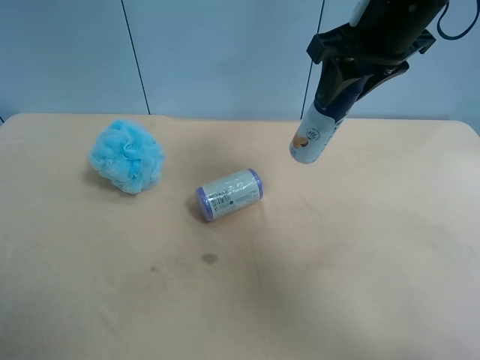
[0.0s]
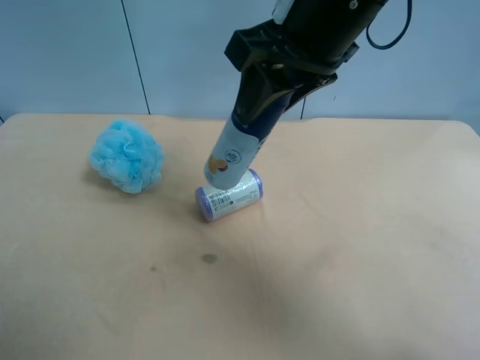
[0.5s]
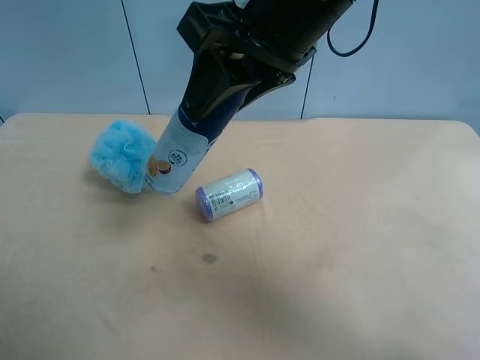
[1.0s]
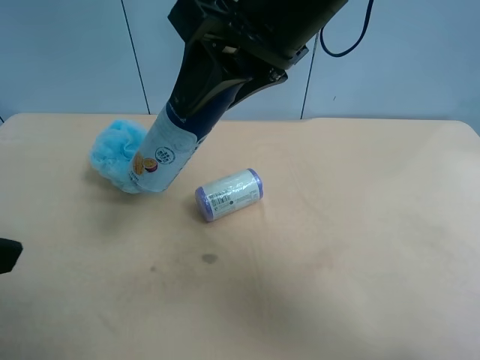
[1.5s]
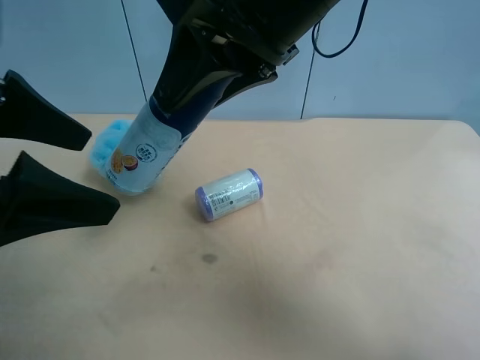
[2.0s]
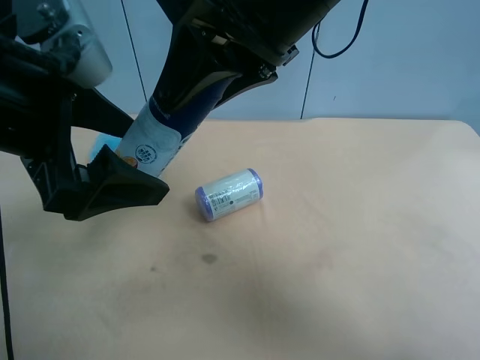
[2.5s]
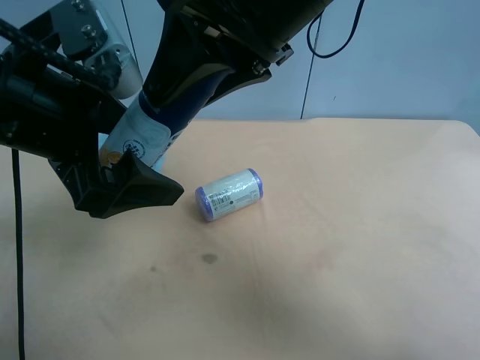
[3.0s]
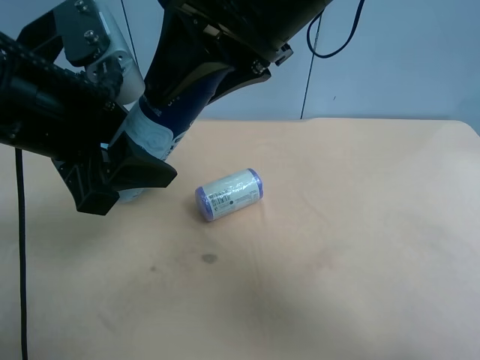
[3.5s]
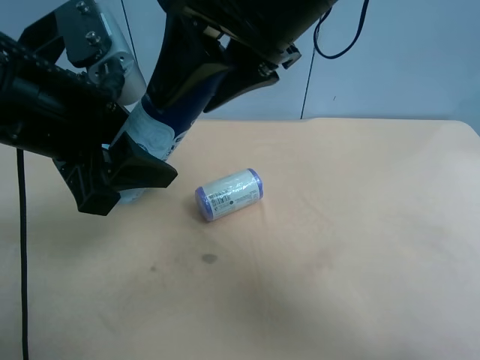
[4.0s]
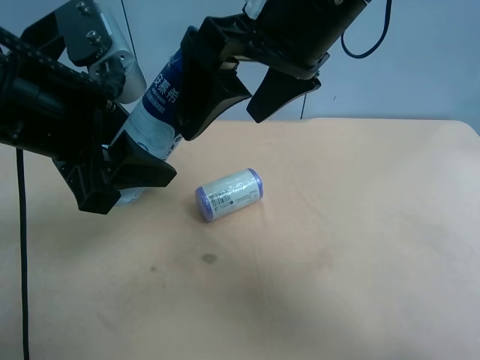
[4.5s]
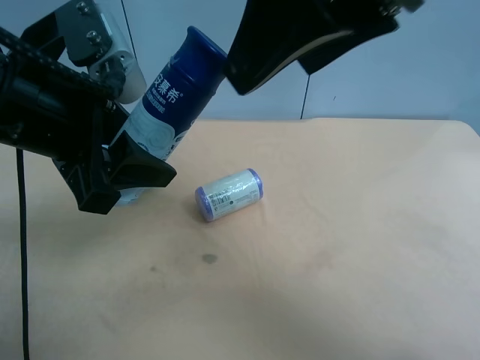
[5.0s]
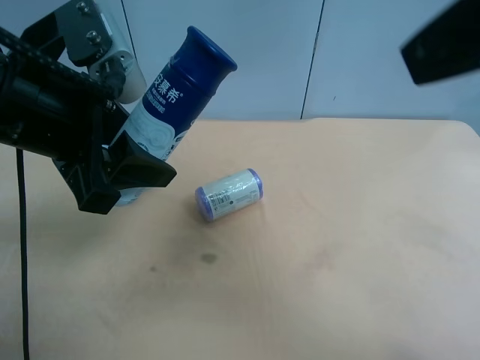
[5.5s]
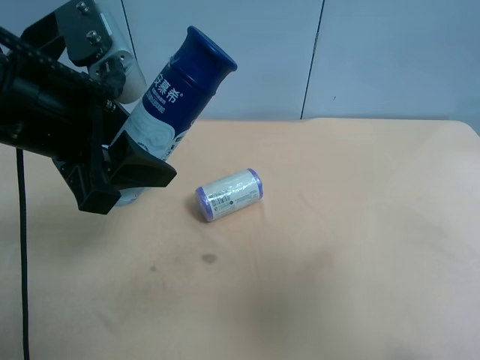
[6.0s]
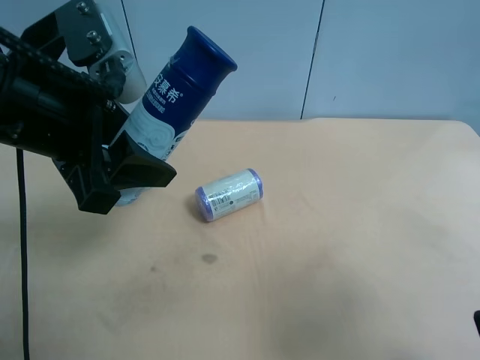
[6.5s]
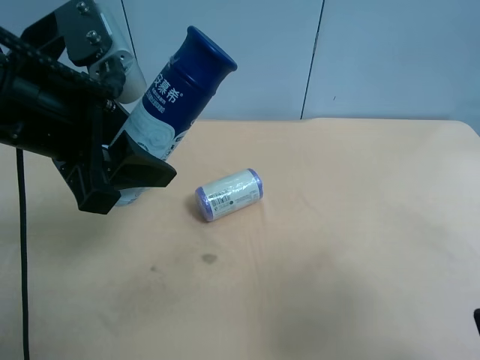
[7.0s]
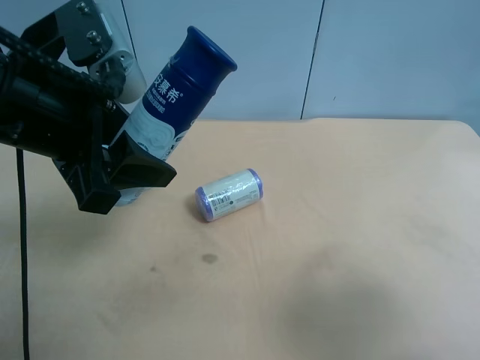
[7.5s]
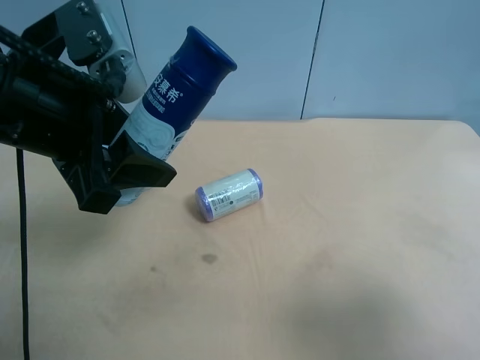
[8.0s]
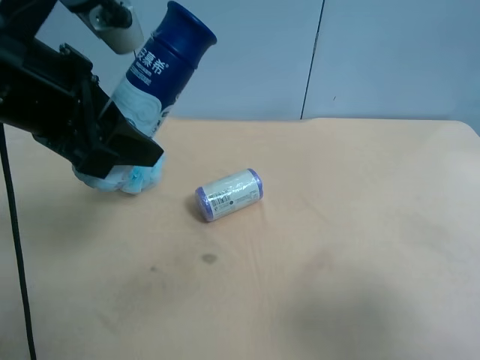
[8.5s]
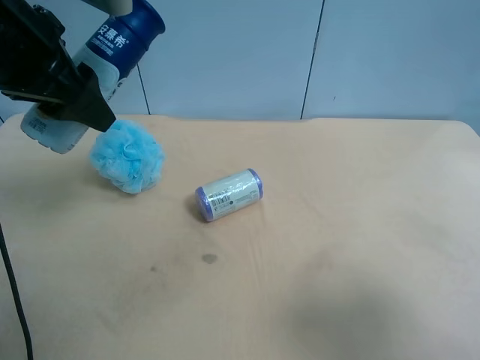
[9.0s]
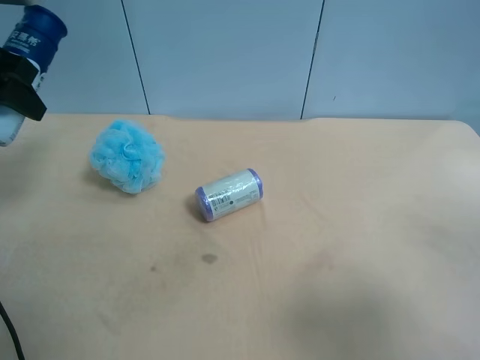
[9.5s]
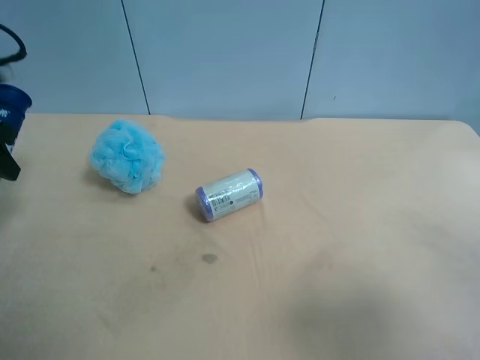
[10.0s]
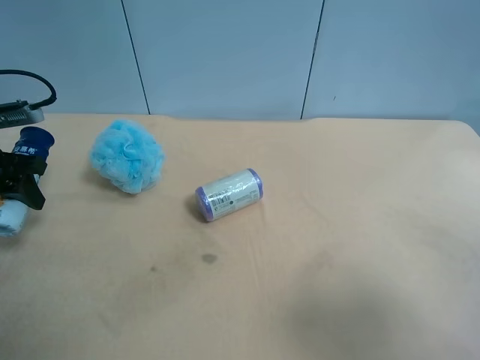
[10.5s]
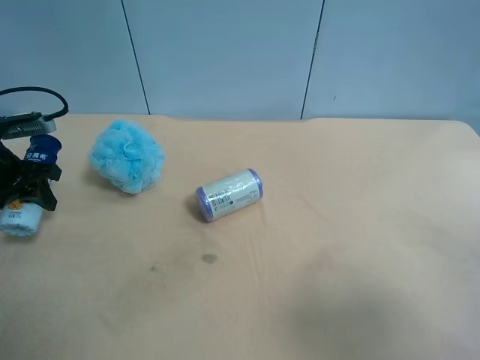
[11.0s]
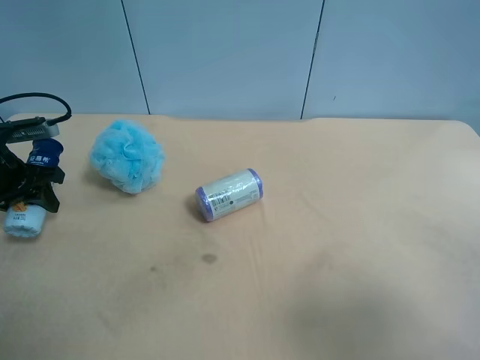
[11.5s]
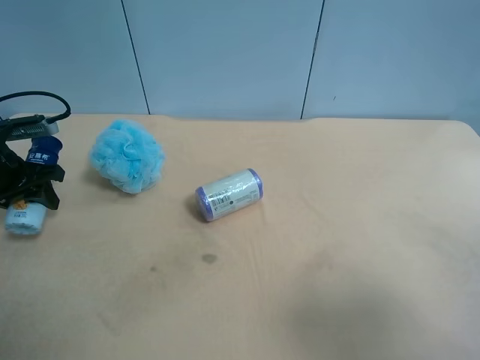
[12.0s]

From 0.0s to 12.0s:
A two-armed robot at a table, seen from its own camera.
Task of the whole recording: use the right gripper to pick up the item and transfer it from the right gripper to the left gripper.
From 0.0s to 2.0s: The left gripper travels forward and to the right by about 20 cm; the right gripper is displaced to the left and backward by approximately 15 cm.
From 2.0s to 4.0s: The right gripper opens; the left gripper shifts by some 5 cm, and closes its fingers.
From 4.0s to 6.0s: The right gripper heads to the right and backward, covering about 30 cm, and opens its fingers.
From 6.0s to 8.0s: The right gripper changes place by some 5 cm.
From 8.0s to 10.0s: The left gripper heads to the left and forward, covering about 20 cm.
From 10.0s to 12.0s: The left gripper moves downward, about 10 cm.

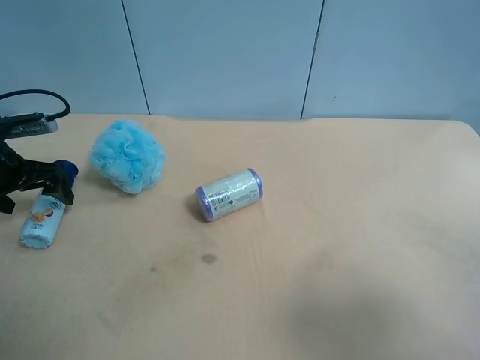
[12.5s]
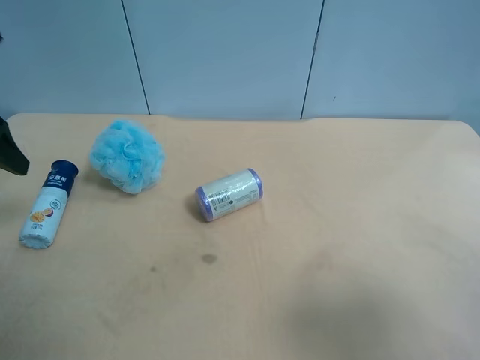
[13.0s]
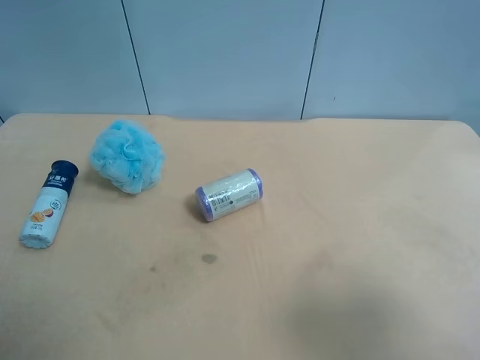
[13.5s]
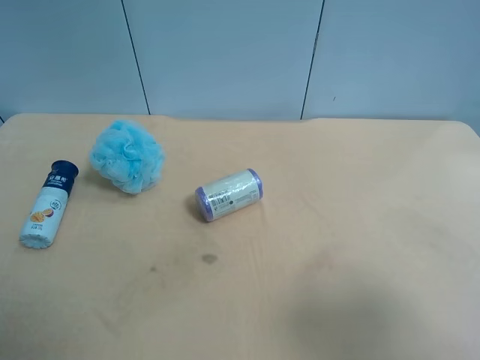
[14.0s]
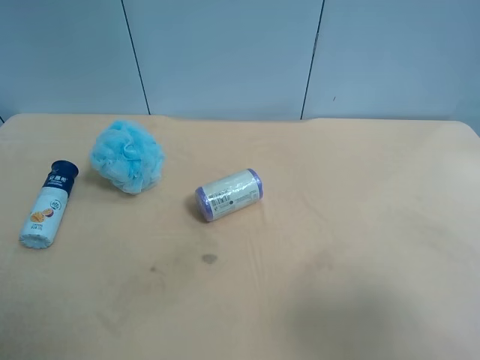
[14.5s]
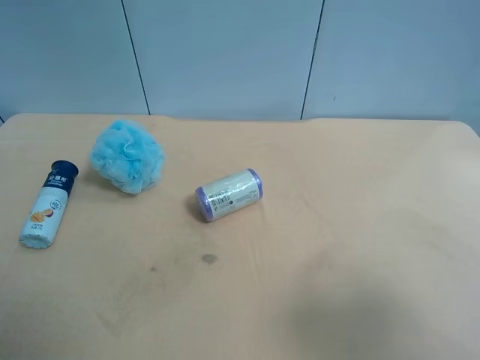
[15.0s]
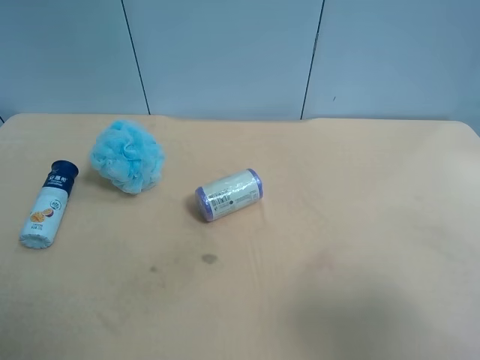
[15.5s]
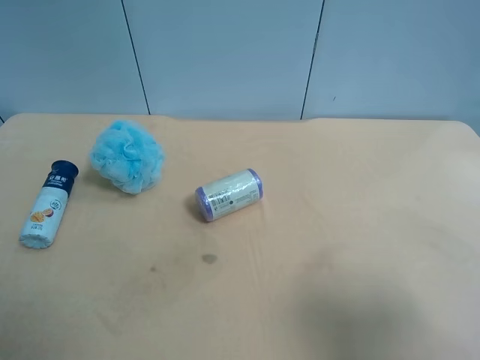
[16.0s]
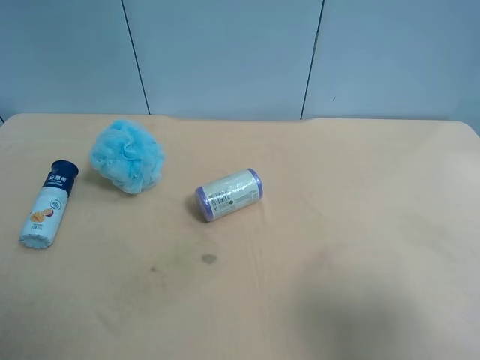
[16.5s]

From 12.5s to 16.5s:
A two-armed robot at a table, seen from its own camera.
Task of the whole recording: use the right gripper to pick up the item and transfer it from the right gripper to the left gripper.
From 12.5s to 14.5s: The left gripper goes about 35 cm backward and upward.

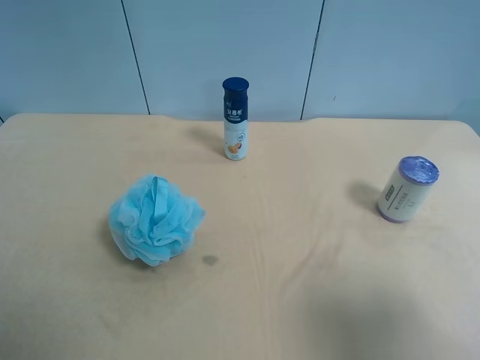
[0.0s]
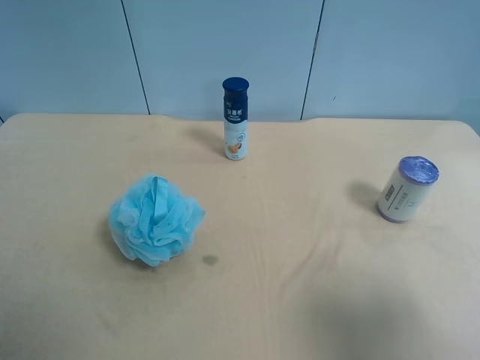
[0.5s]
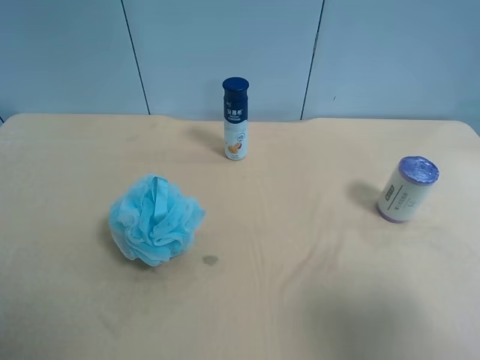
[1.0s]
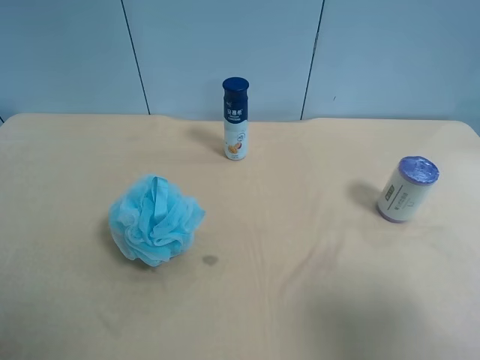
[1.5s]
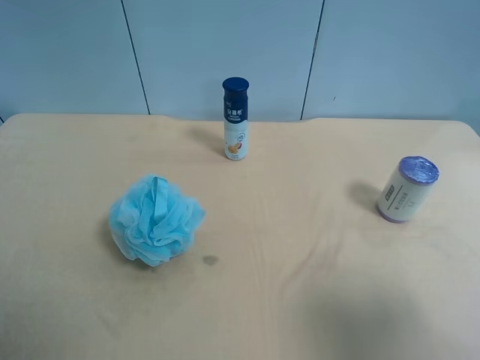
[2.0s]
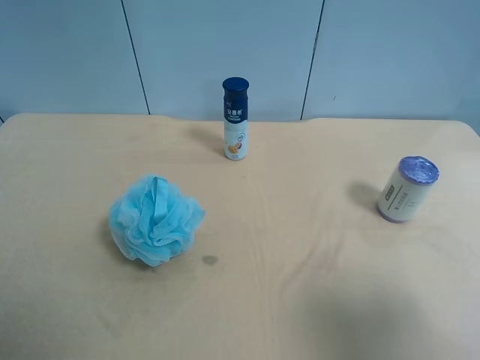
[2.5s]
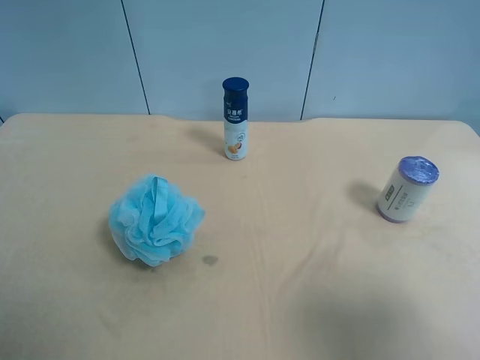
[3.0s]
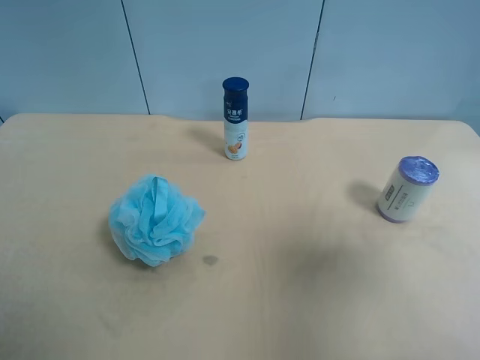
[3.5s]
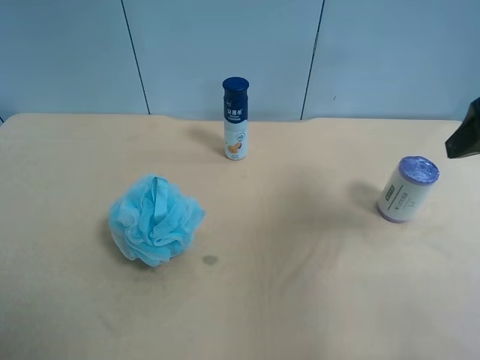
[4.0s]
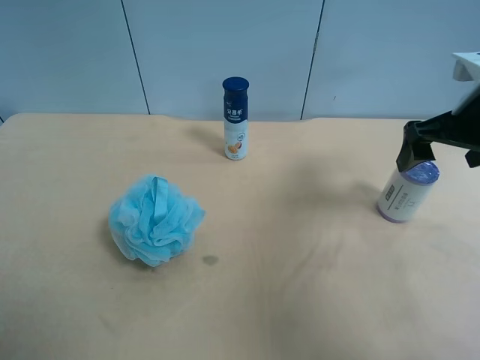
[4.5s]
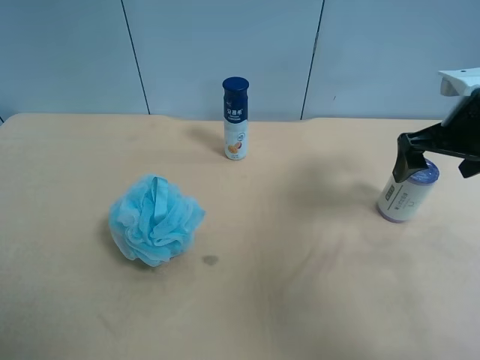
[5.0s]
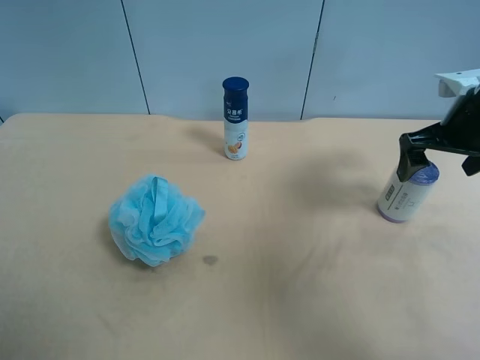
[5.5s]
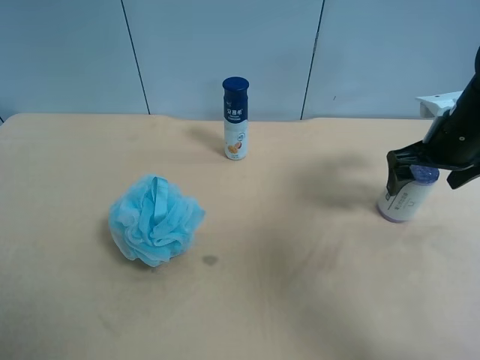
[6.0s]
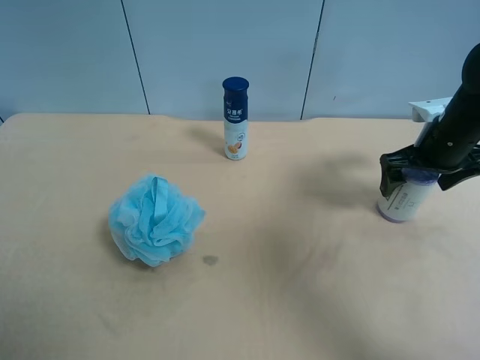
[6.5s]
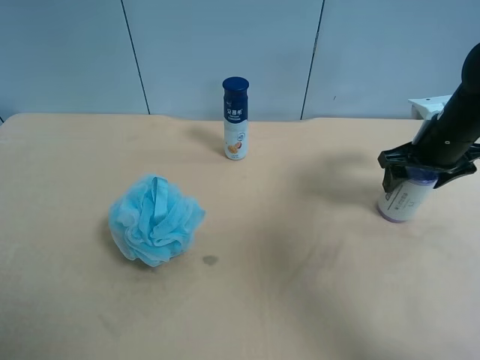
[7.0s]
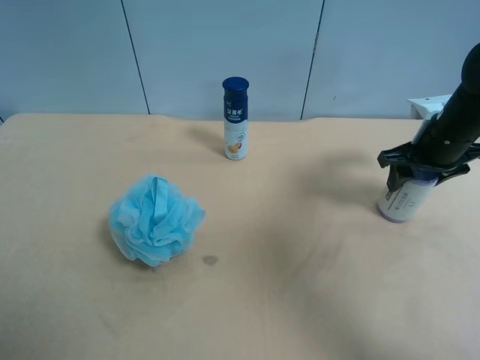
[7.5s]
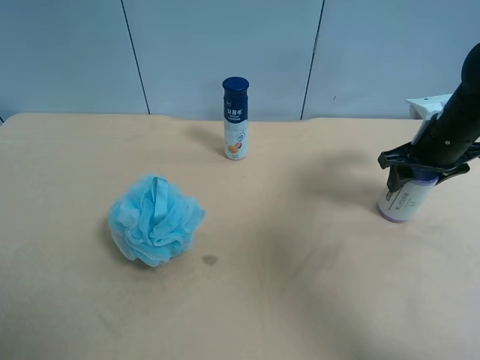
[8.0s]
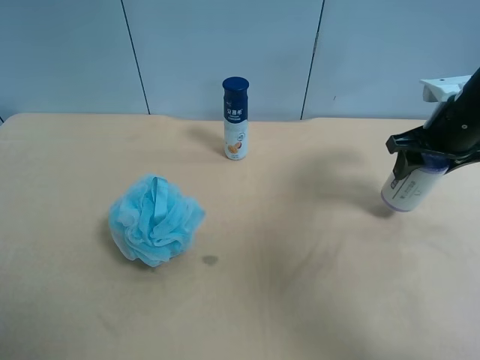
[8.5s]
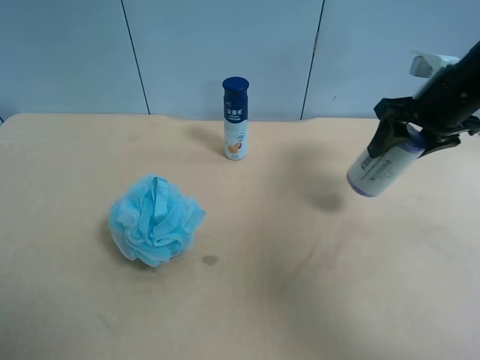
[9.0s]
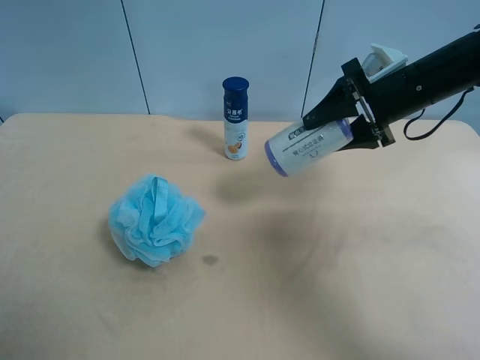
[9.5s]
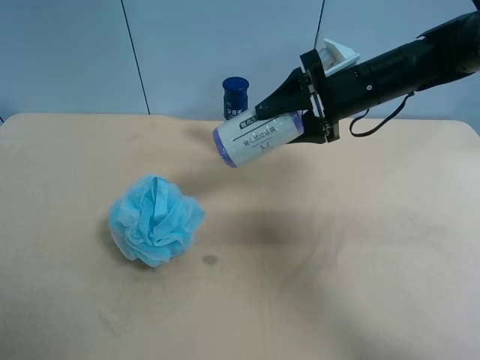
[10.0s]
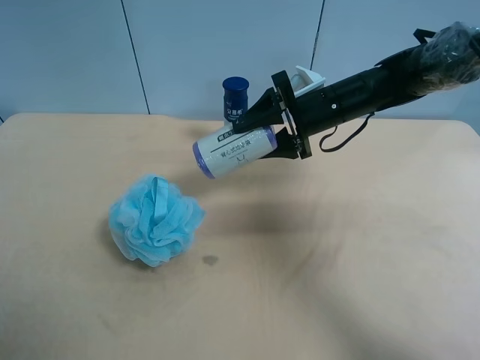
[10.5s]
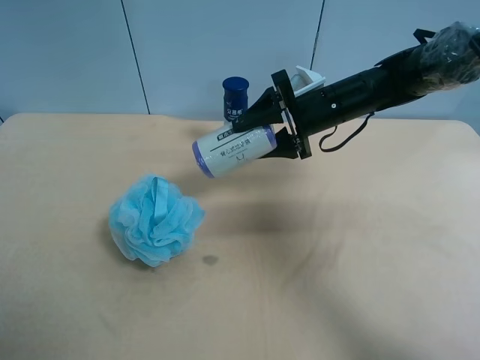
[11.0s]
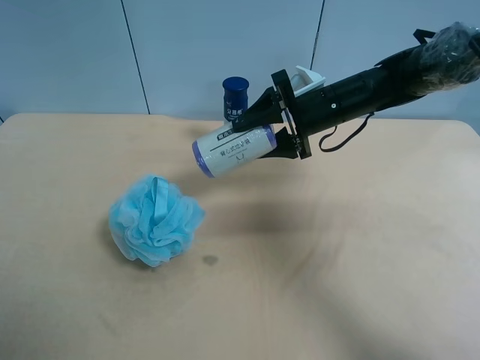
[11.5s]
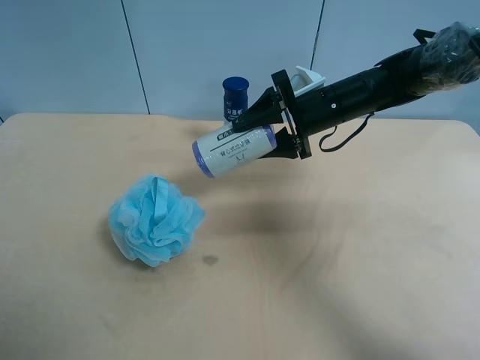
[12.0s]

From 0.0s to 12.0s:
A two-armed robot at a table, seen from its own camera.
Task of the whole recording: use the right gripper to pick up the item and transfer it from the right gripper to the left gripper.
From 0.0s to 2.0s: The two grippers keep their place.
From 2.0s to 4.0s: The right gripper travels forward by roughly 20 cm.
From 4.0s to 6.0s: The right gripper goes about 20 cm forward and downward.
From 6.0s to 8.0s: The right gripper closes its fingers.
From 8.0s to 10.0s: The right gripper is displaced to the left by roughly 15 cm.
From 10.0s to 12.0s: The grippers stay close to where they were, moving slightly.
